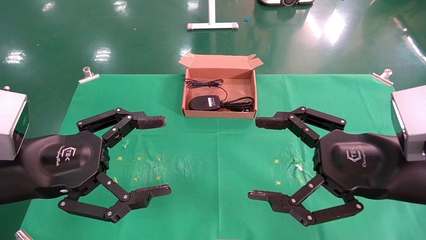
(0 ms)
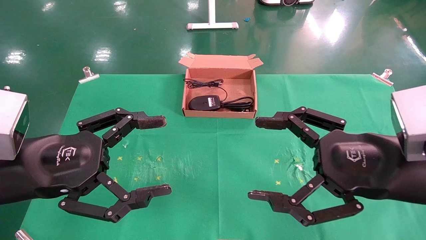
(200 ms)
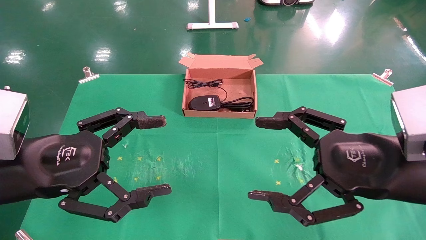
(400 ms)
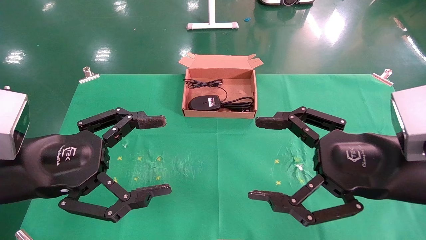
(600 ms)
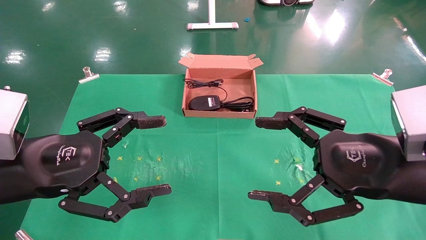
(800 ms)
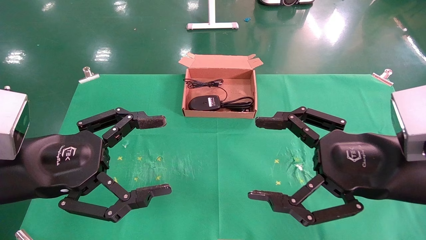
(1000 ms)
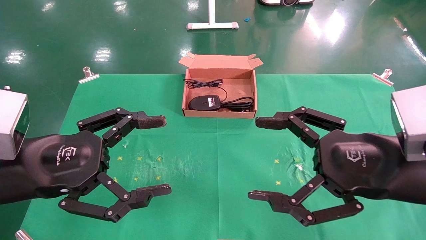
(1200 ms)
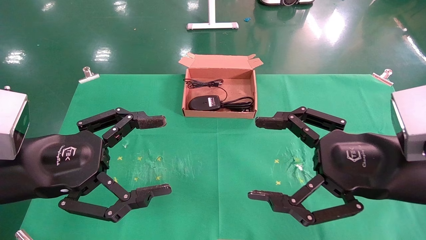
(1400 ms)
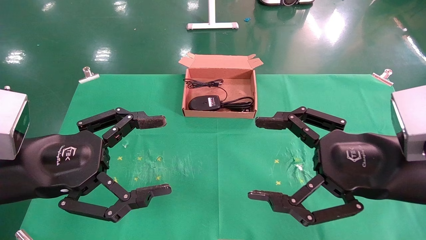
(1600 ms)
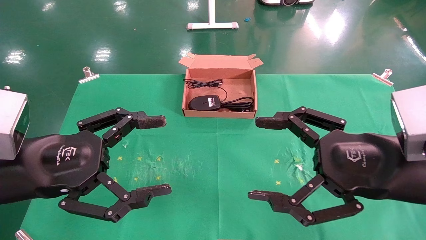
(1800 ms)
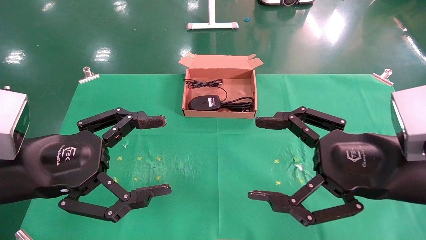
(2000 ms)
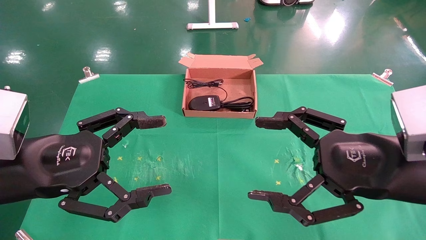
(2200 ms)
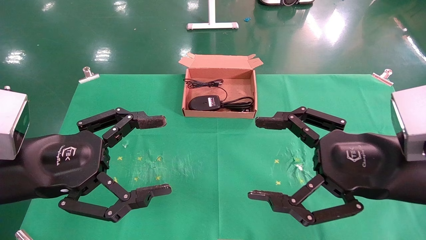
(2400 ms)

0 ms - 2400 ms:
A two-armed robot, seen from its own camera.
Task of the whole recording: grasp data cable left put into box grasp mouse right put into box.
0 ms - 2400 ms: Both grippers stay about where they are.
